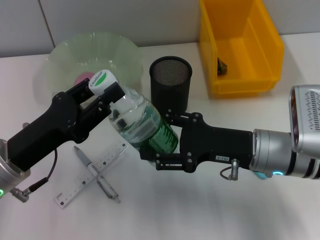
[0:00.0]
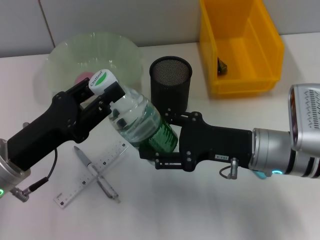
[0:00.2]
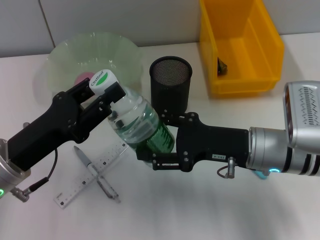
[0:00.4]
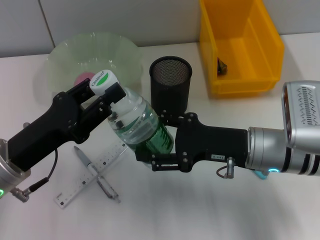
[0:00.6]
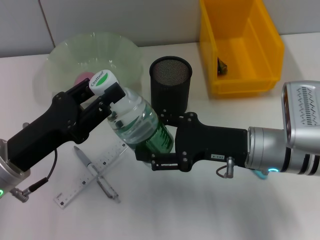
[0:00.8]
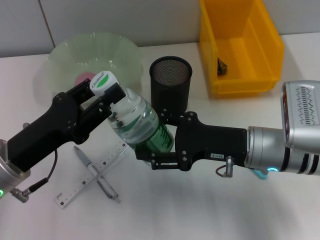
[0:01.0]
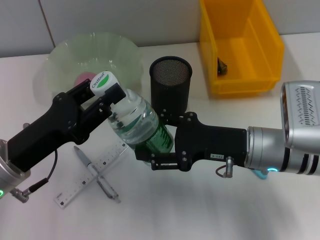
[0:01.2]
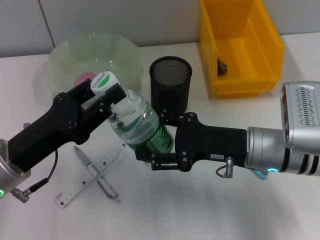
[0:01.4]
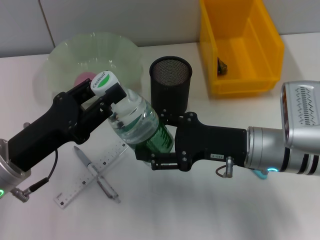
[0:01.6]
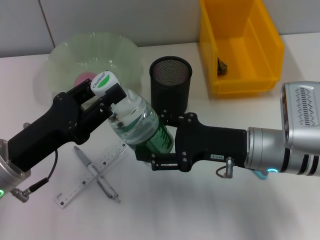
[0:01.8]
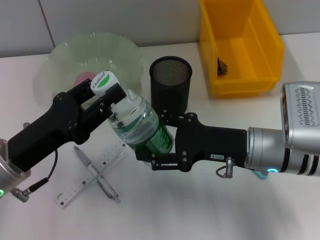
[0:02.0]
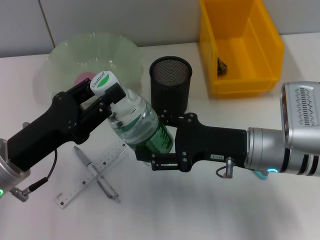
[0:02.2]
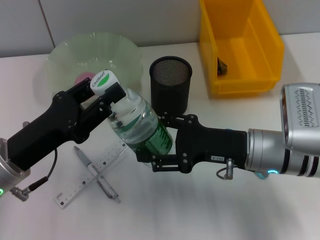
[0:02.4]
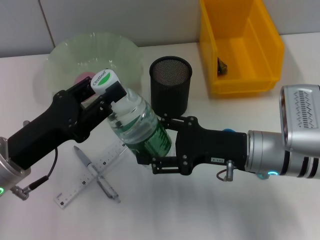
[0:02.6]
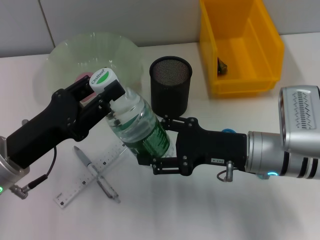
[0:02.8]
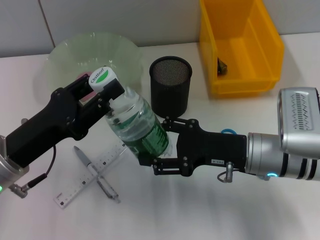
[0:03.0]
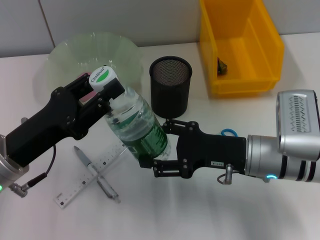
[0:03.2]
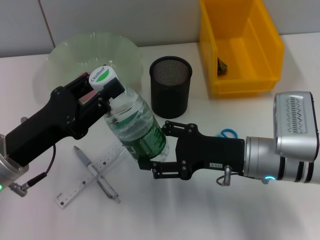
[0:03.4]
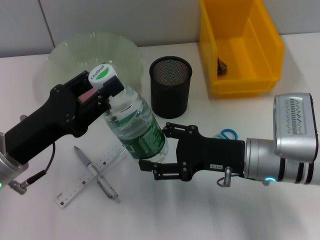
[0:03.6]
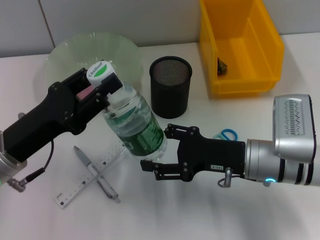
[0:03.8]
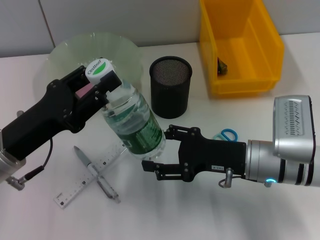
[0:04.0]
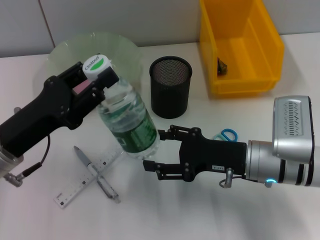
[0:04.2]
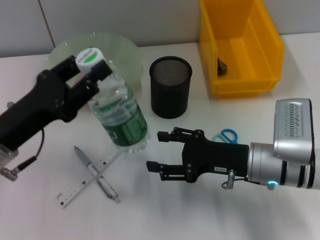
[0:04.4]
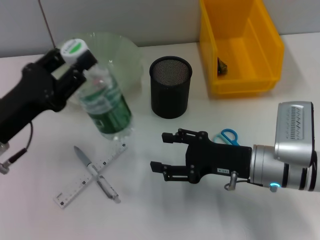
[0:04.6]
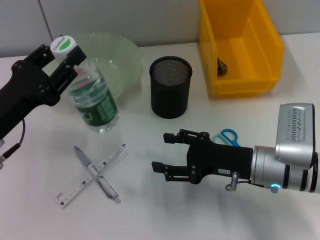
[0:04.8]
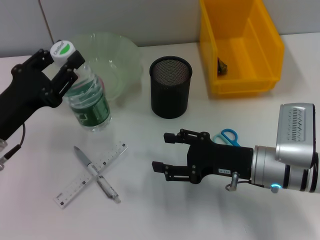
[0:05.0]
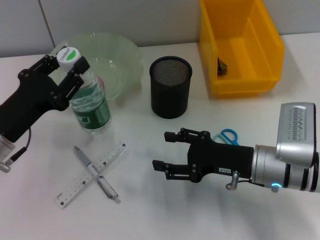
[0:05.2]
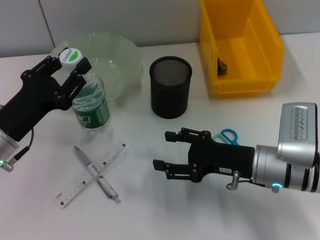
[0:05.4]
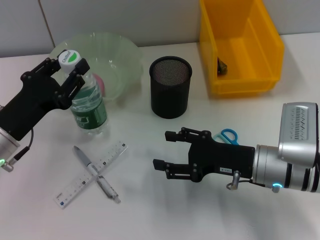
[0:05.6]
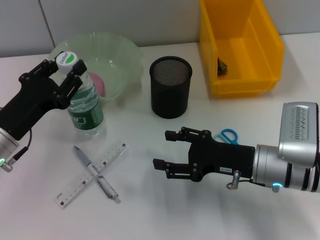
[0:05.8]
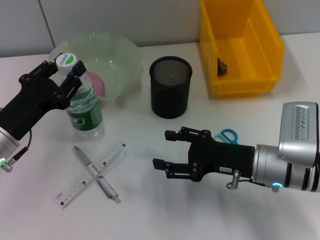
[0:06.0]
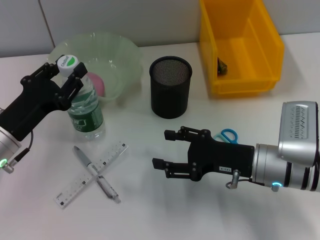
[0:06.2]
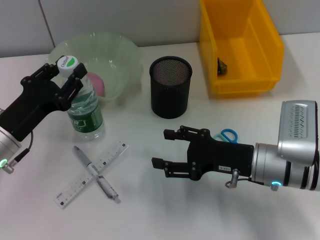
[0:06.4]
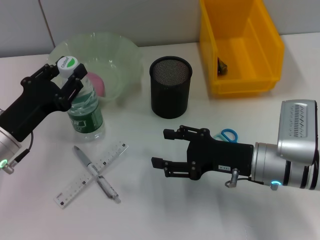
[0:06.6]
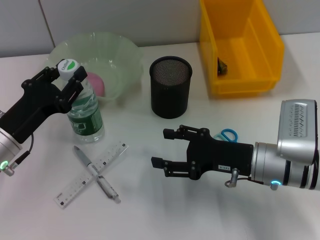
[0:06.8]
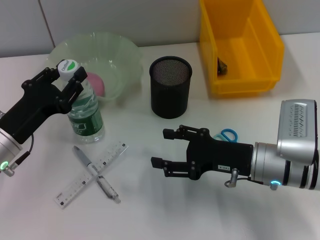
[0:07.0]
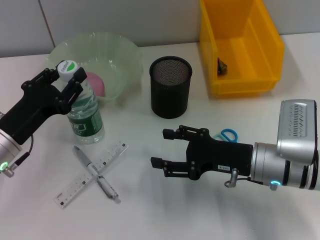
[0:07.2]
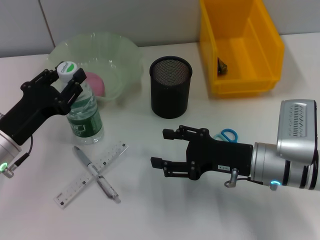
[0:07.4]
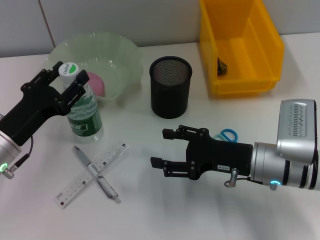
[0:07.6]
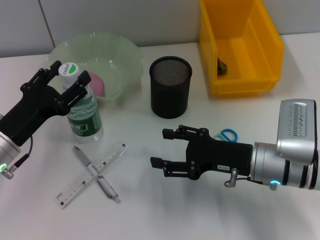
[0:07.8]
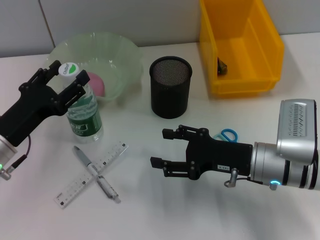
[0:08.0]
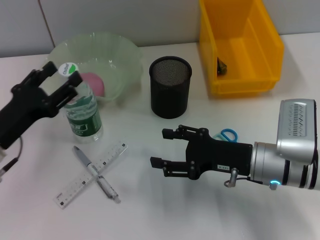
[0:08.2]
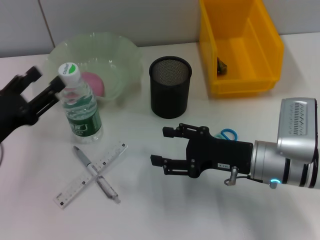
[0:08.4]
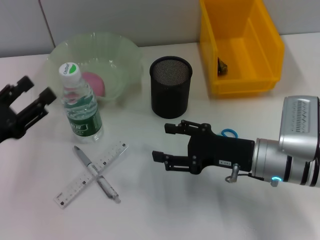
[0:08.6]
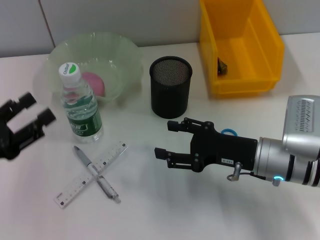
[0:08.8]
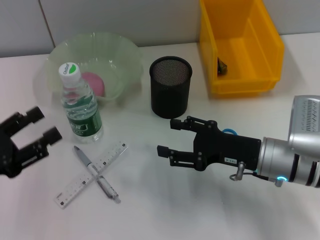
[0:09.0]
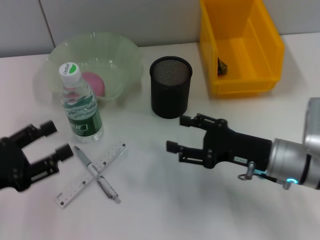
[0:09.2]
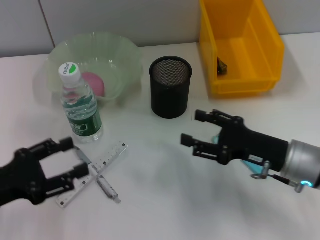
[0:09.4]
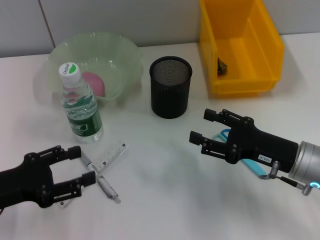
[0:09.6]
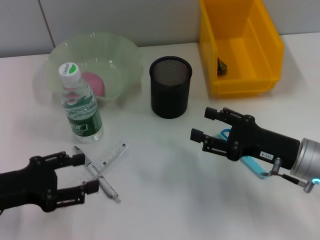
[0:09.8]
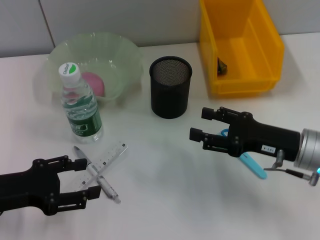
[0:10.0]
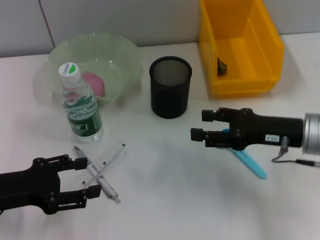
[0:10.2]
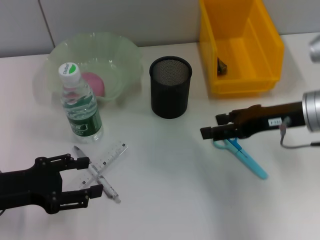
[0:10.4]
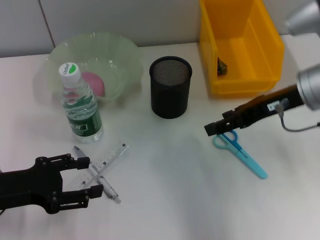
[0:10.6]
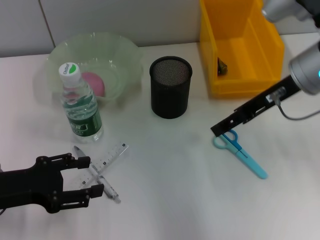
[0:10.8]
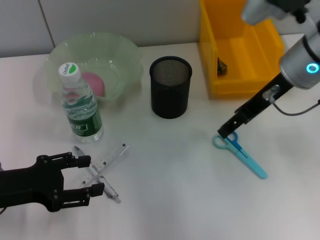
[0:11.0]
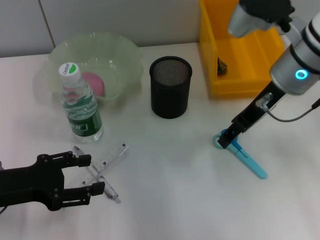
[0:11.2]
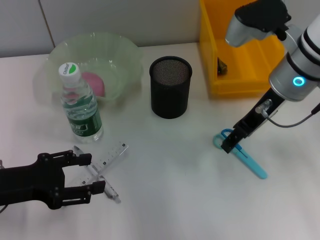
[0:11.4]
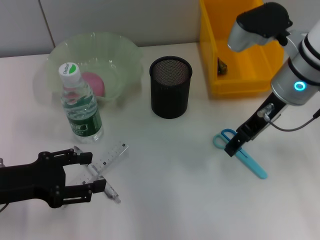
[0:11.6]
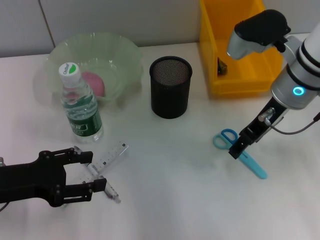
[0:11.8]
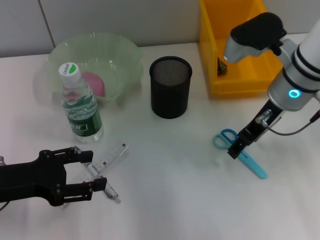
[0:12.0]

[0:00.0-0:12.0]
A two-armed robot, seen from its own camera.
Step, 0:00.0 to 0:04.2: Pass the water bottle from the right hand to the left hand.
Step, 0:04.4 to 0:07.4: Place the water bottle on the table with the left hand.
0:00.0 to 0:03.0: Both grippers stay about where they are.
0:06.0 to 0:07.6: Neither gripper changes place.
0:07.6 to 0:09.0: The left gripper heads backward and to the left, covering roughly 10 cm.
0:09.0 to 0:10.4: The right gripper shifts some 10 cm upward.
0:10.4 to 0:12.0: The right gripper heads to the left and forward, covering roughly 10 cm.

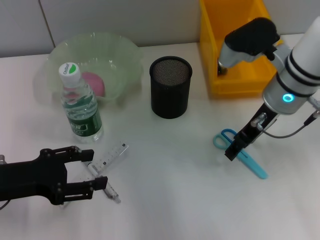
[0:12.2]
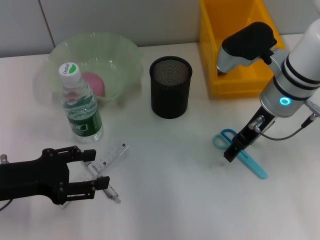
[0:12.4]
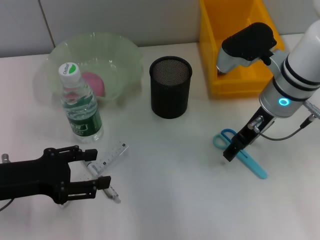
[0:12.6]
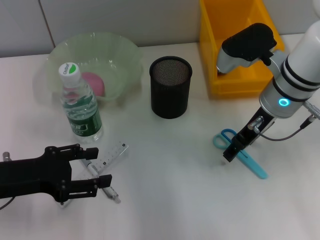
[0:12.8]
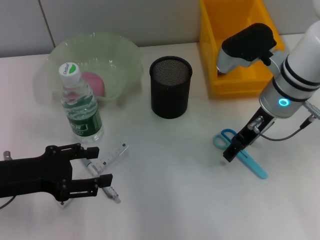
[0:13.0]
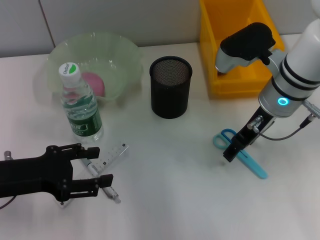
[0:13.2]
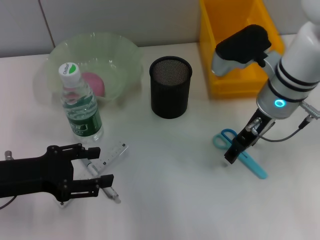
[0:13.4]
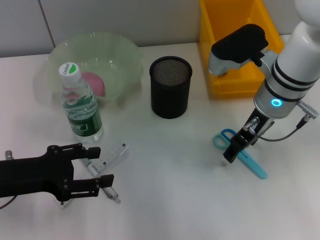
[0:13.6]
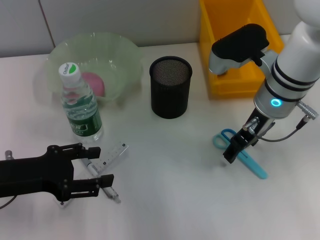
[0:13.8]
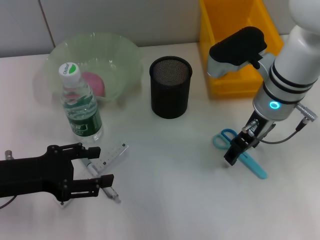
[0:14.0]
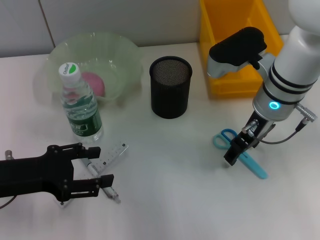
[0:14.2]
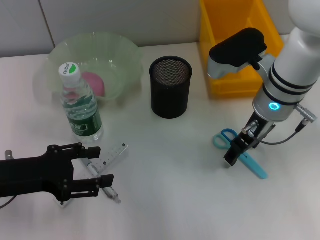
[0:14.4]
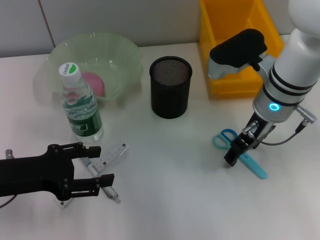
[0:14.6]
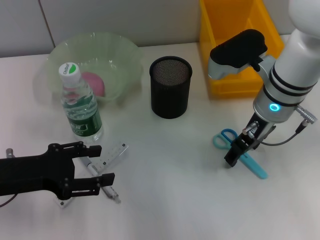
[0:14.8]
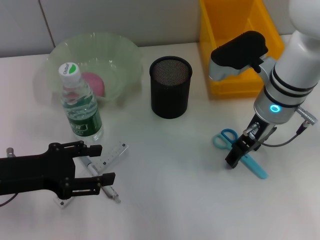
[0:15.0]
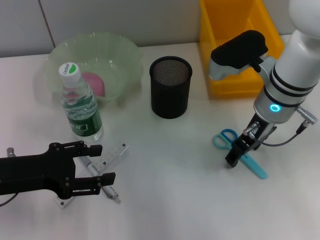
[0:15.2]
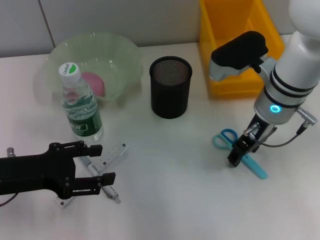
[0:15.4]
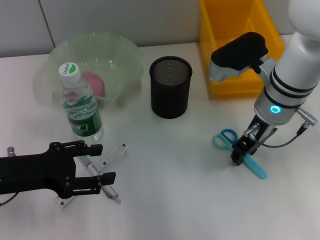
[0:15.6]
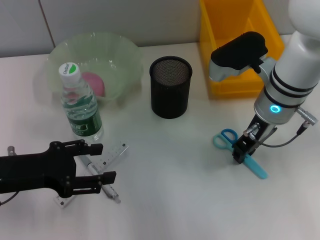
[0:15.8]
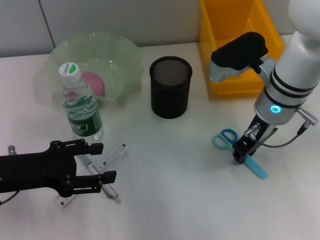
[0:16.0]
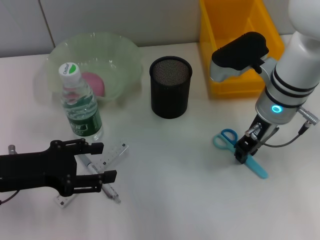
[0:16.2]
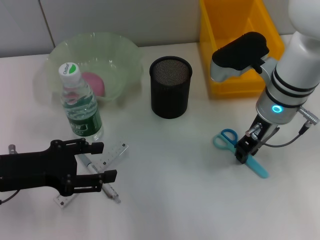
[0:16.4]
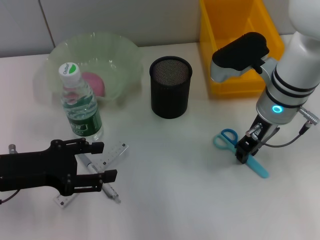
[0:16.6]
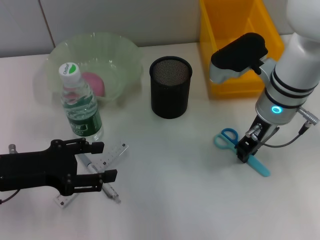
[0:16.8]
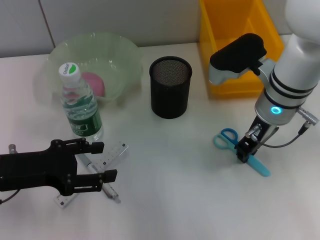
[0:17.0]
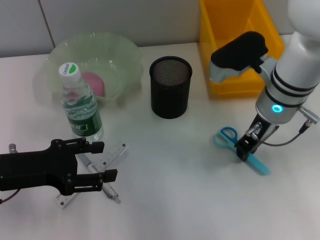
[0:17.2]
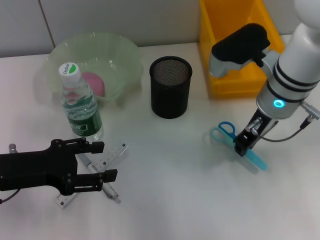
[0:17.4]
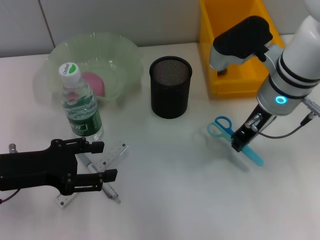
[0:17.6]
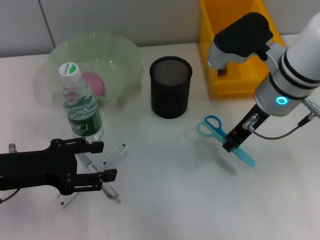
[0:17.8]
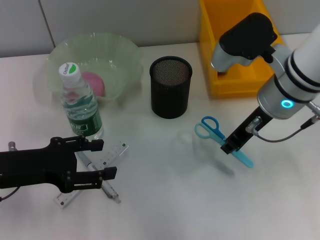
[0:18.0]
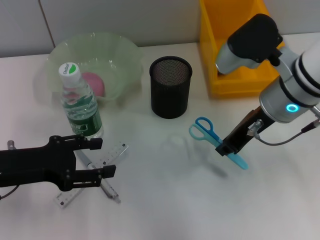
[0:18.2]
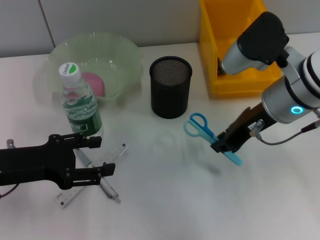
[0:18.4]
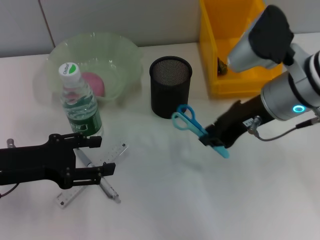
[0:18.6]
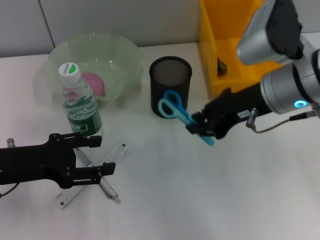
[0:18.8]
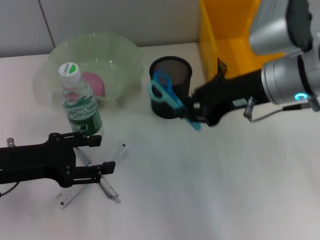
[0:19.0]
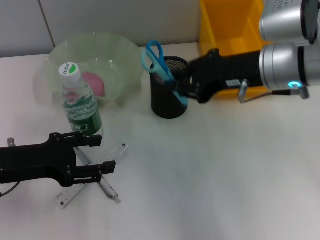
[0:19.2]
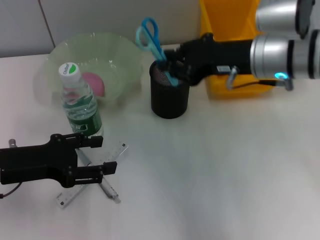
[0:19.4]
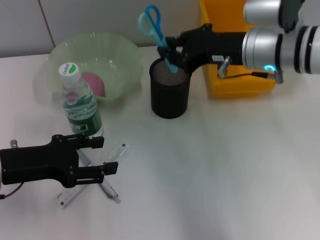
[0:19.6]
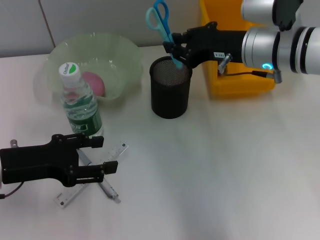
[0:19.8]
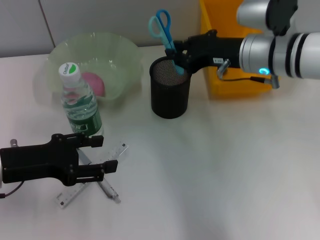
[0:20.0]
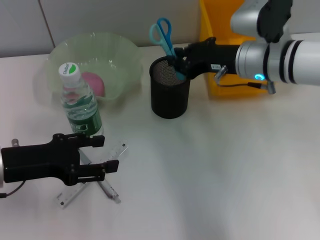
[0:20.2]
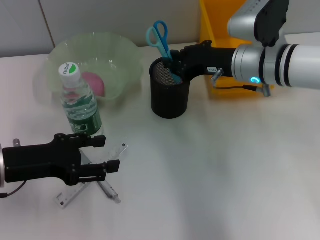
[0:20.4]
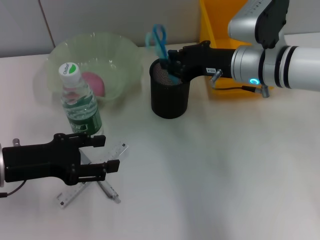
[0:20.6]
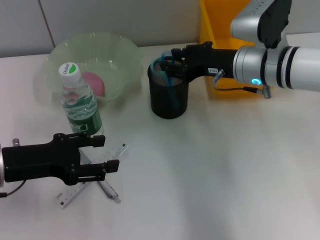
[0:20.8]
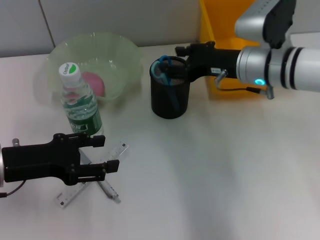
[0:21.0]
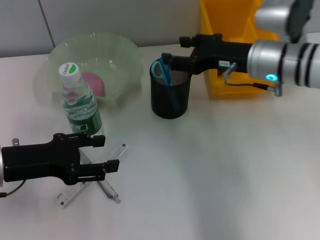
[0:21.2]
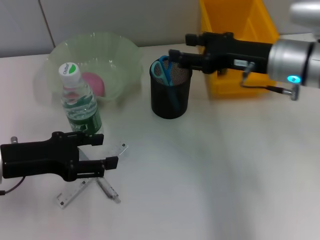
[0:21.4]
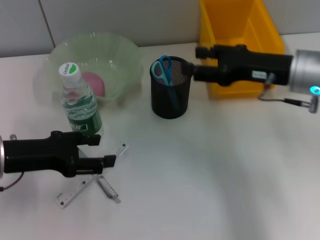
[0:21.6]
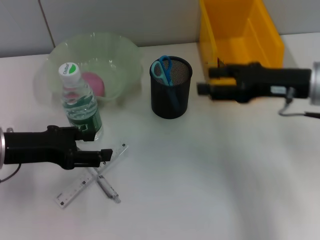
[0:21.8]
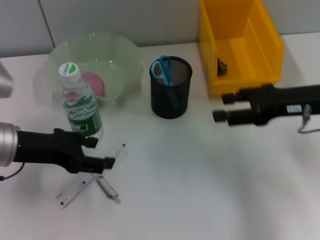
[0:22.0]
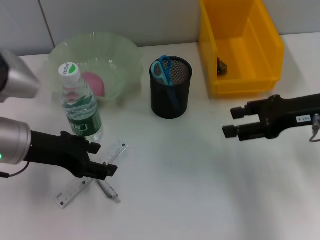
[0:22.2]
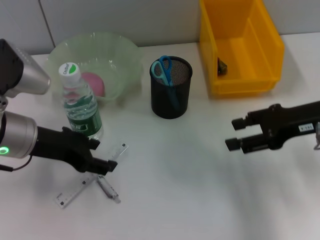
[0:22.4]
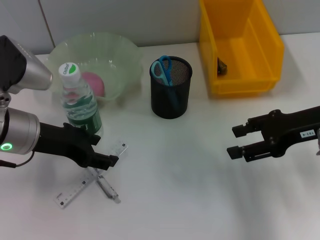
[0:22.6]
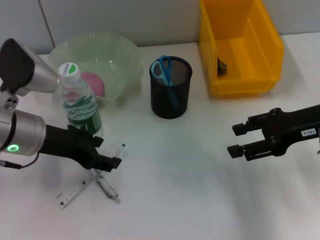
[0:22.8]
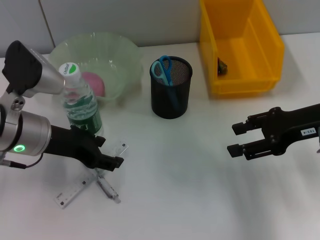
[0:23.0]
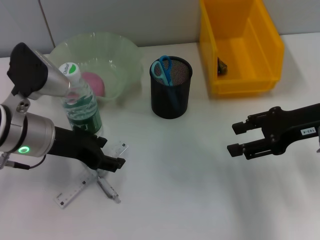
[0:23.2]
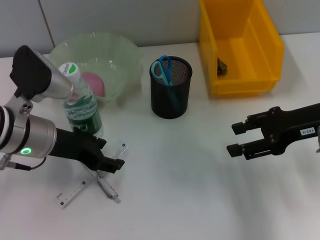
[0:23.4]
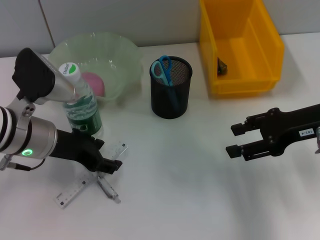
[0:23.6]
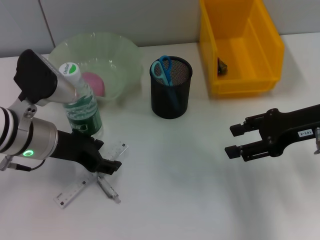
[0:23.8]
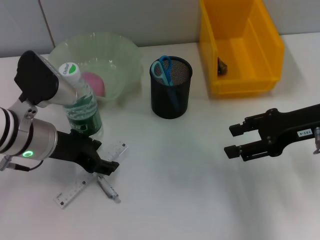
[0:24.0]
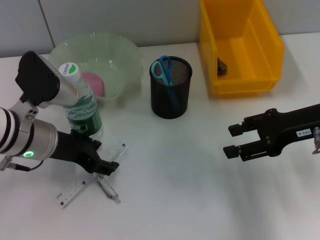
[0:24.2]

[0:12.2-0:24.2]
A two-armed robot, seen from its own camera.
Step, 0:12.2 to 0:17.0: Grab the blue scissors with the right hand.
Step, 0:17.2 to 0:20.8: Place the blue scissors into the pen holder with the right hand.
0:12.2 to 0:13.8: The grippers move only a little.
0:13.8 to 0:15.2: Both grippers stay put.
0:15.2 to 0:16.6: The right gripper closes.
0:18.2 to 0:19.8: The right gripper shifts by roughly 5 cm.
0:19.8 to 0:21.2: The right gripper opens its fingers.
0:21.2 to 0:22.6: The left gripper ends up some 5 cm from where it was. The right gripper moves to the right and backward, approximately 10 cm.
0:22.6 to 0:24.2: The grippers move only a little.
